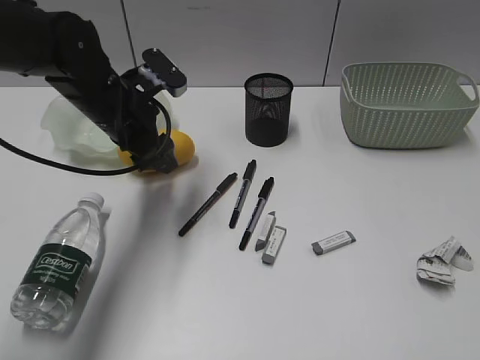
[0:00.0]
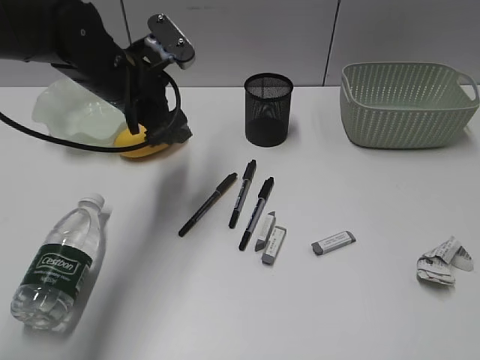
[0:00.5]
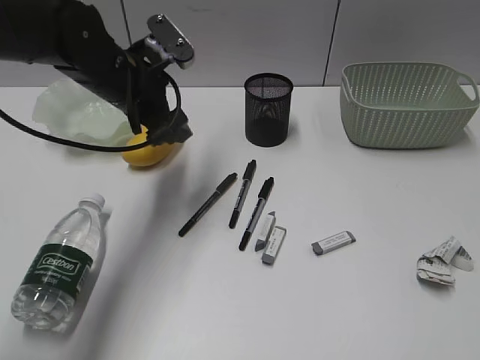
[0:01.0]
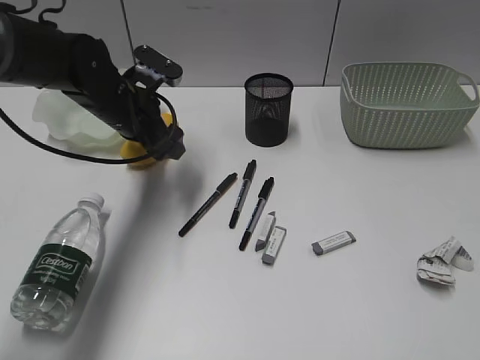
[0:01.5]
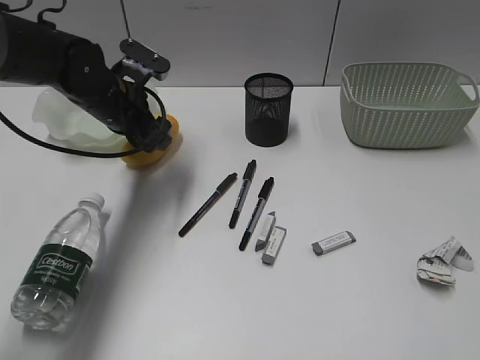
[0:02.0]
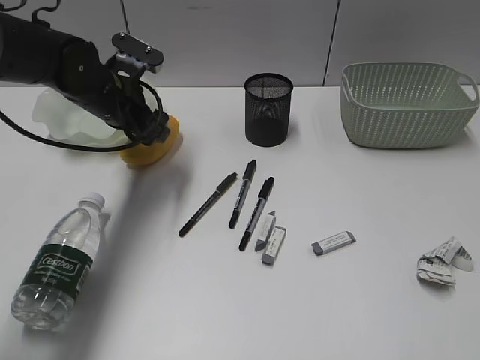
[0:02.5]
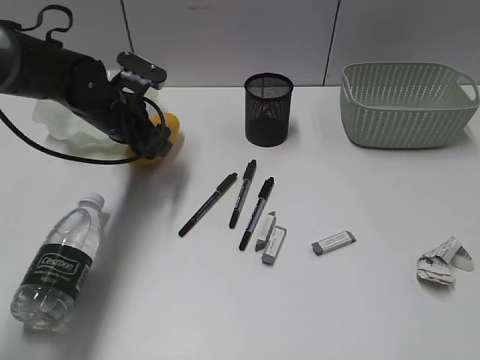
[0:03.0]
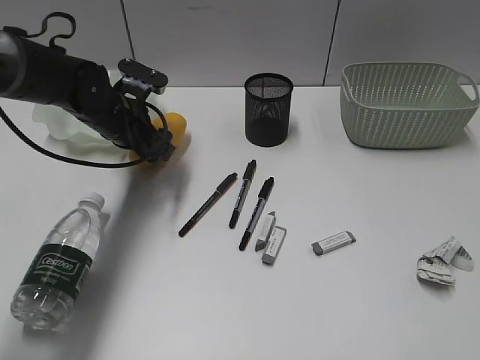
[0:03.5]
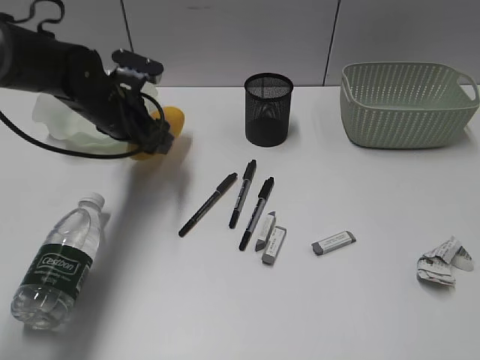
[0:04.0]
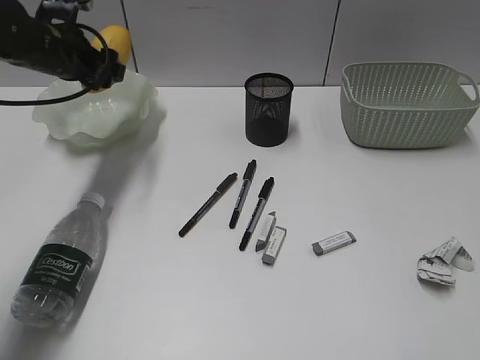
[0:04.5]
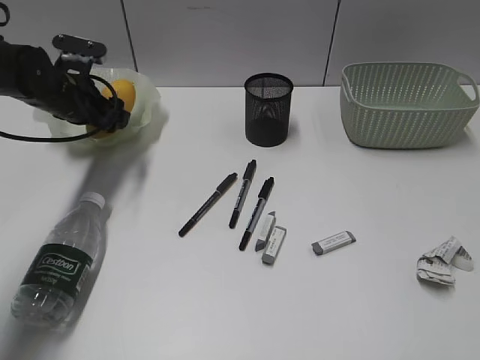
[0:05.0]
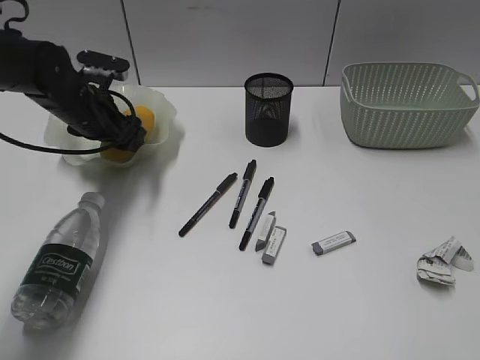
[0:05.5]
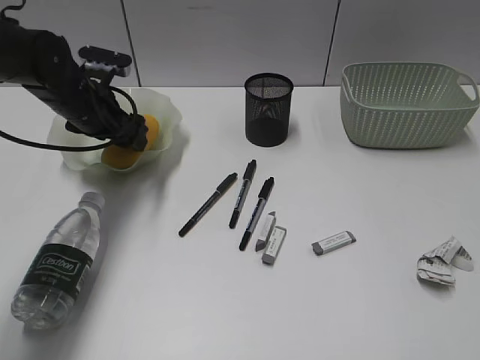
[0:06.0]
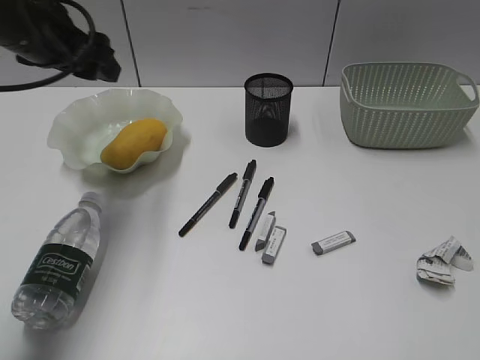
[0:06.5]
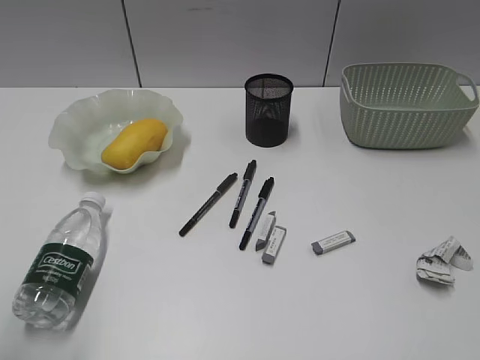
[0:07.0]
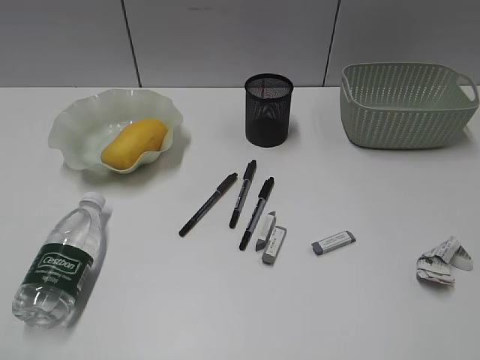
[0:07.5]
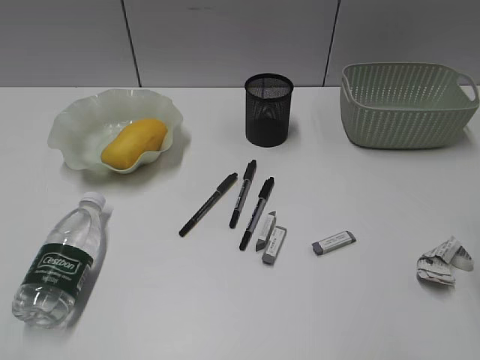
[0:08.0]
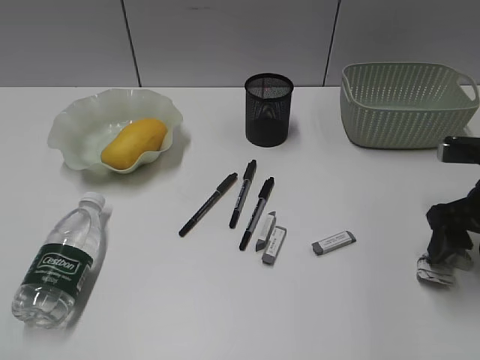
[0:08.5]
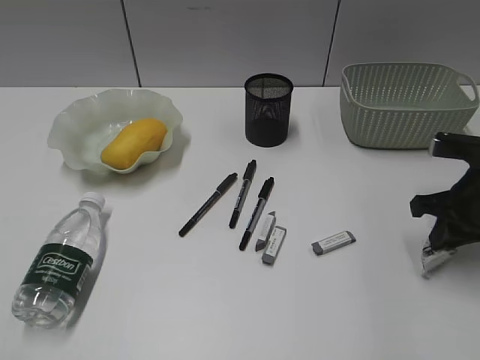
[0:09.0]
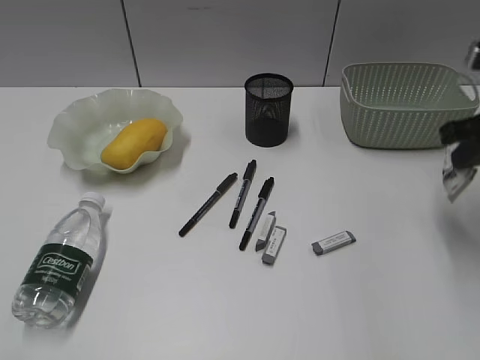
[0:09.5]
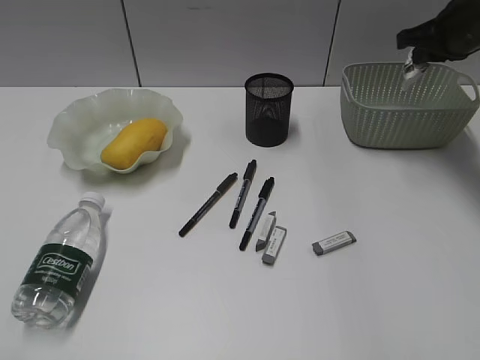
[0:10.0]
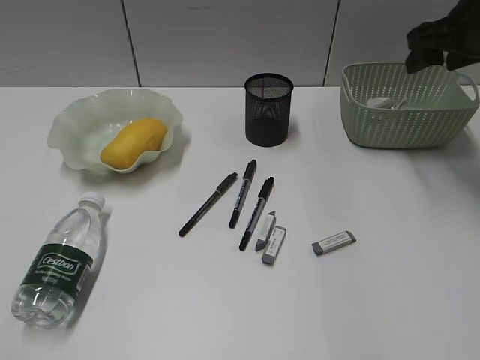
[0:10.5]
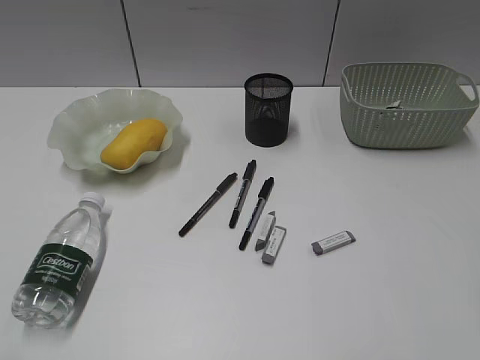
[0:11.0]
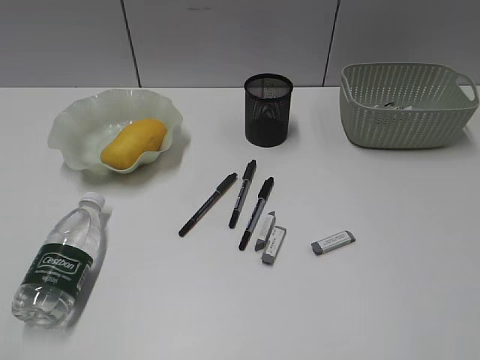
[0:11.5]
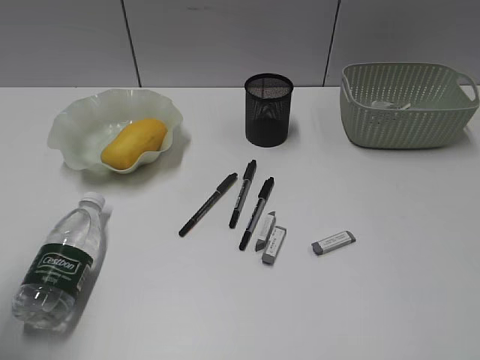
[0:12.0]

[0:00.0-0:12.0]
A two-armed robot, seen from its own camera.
Step, 0:00.0 to 0:03.5: Grasp the mango with left gripper.
Step, 0:04.0 to 0:06.5: Place the mango in the plate with left gripper.
Step, 0:07.0 to 0:09.0: Grasp the waste paper with right gripper.
Step, 0:09.5 to 0:10.5: Place the waste paper in the basket with right gripper.
0:00.0 to 0:02.0: There are only small adjustments of the grippers.
0:02.0 to 0:04.0: The grippers move only a little.
0:06.0 to 0:08.0: The left gripper heads backward, covering some 40 cm.
0:08.0 to 0:10.0: The right gripper shifts roughly 25 cm forward, and closes up.
0:10.0 to 0:12.0: The left gripper heads forward, covering about 15 cm, while the right gripper heads backward, covering approximately 40 cm, and opens its fingers.

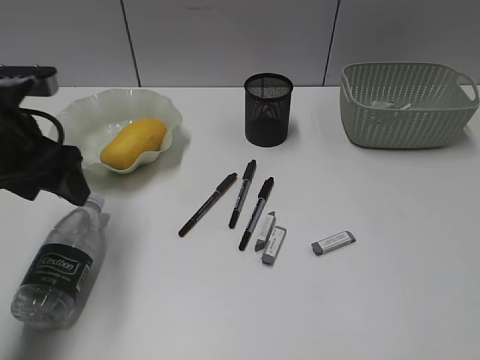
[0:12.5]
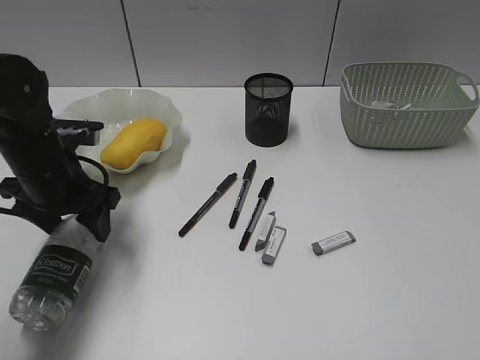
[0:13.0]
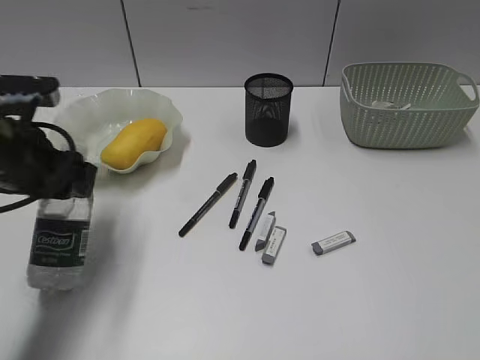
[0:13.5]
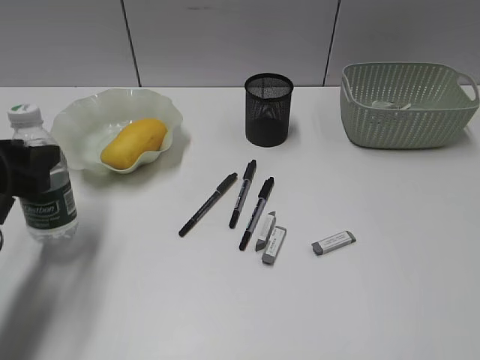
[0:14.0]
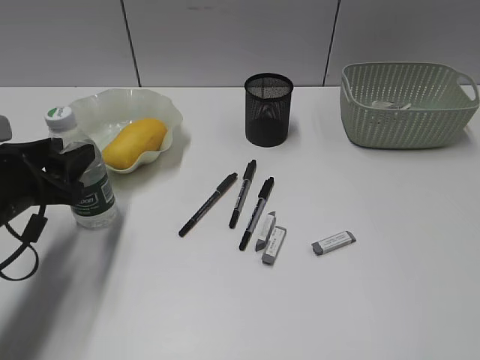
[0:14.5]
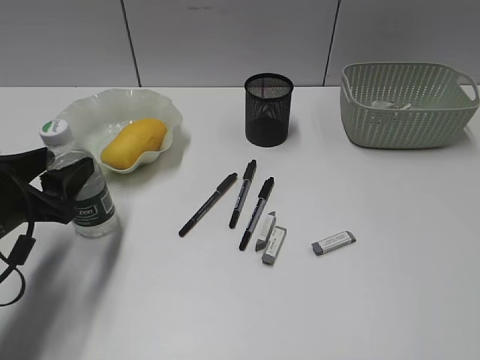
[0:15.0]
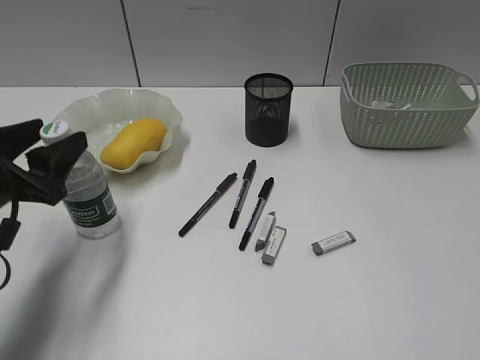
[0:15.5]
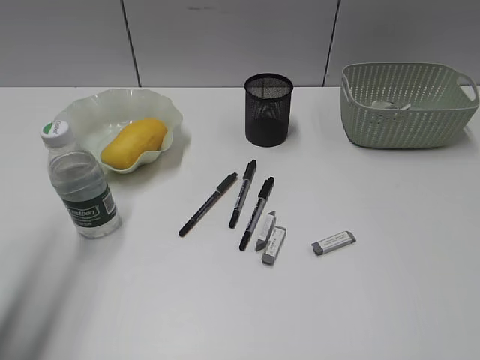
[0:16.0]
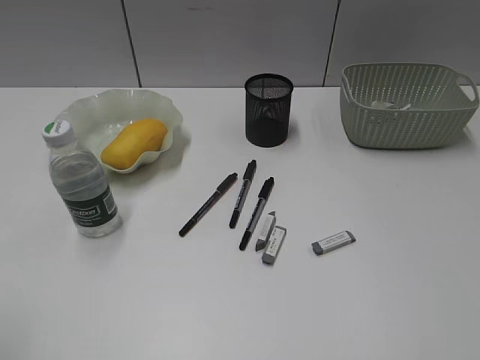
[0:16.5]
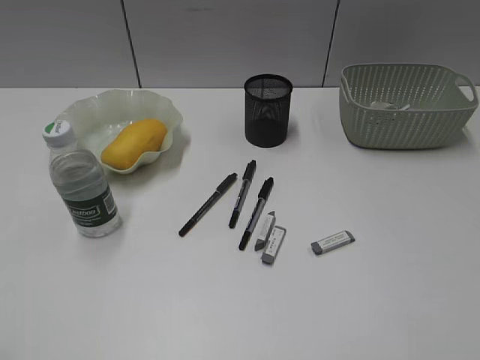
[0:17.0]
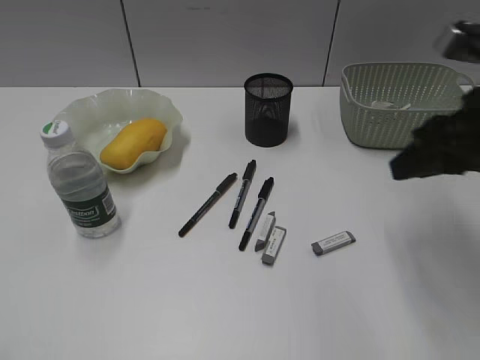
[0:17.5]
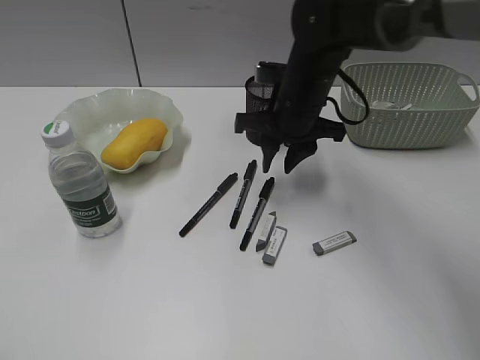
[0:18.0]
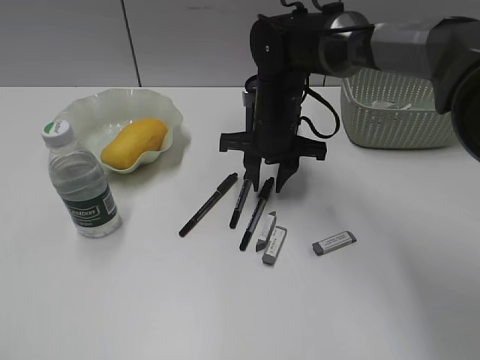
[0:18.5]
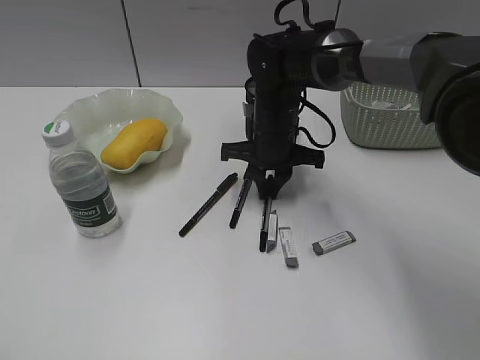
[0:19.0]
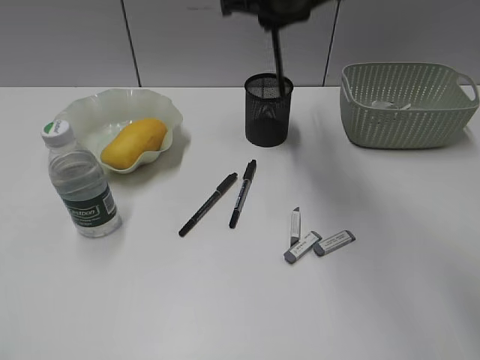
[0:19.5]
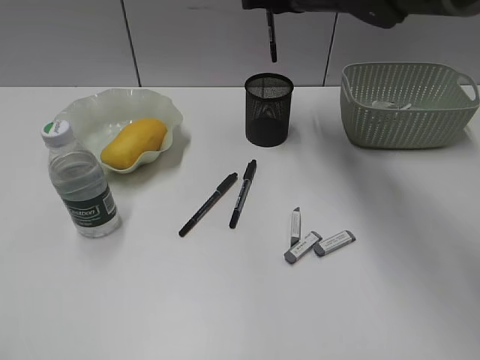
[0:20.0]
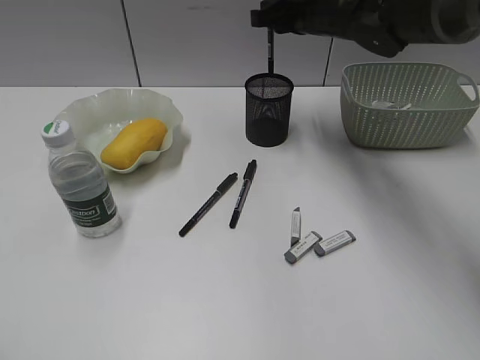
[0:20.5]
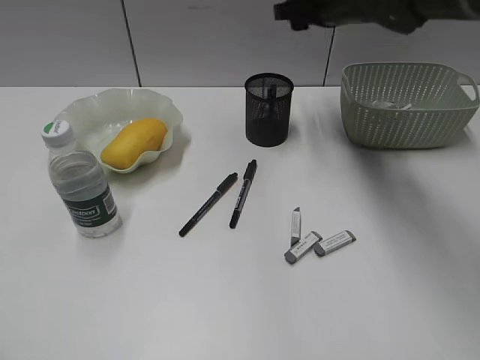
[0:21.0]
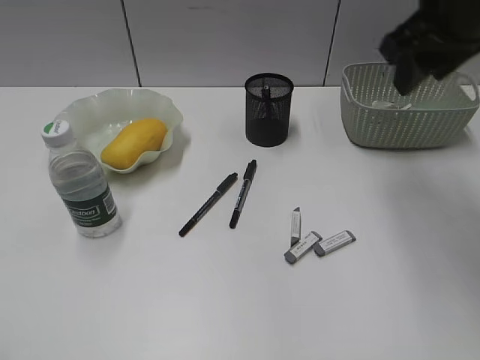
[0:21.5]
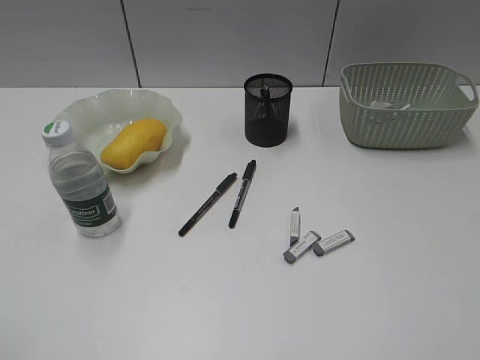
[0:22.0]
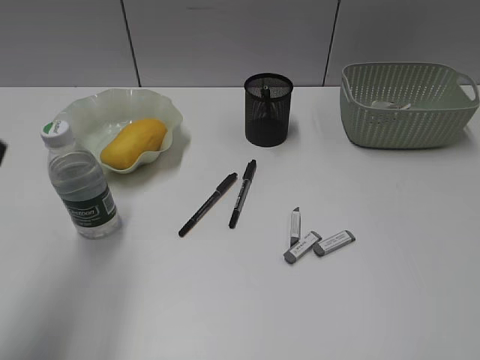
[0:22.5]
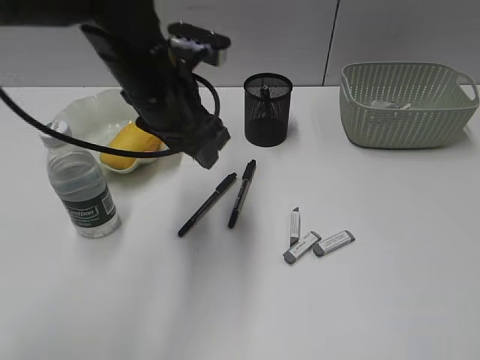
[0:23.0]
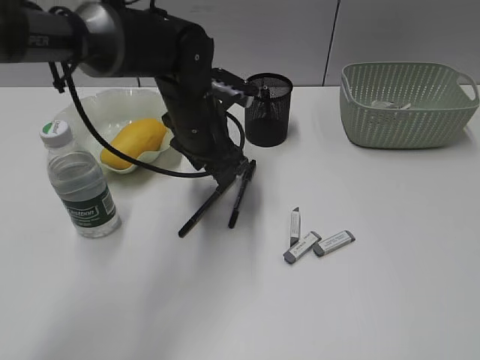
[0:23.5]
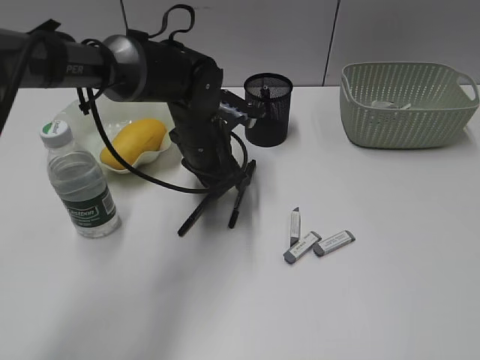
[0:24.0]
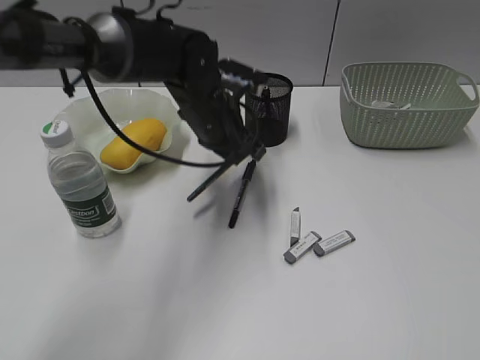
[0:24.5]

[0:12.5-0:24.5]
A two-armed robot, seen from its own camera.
Step, 0:13.5 to 0:15.5: Stand the bottle with left gripper.
Step, 0:16.0 to 0:19.0: Grasp the black pen with right gripper.
Step, 0:21.5 to 0:24.0: Grasp the black pen with left gripper.
0:12.5 to 0:14.5: The left gripper travels downward by roughly 10 cm, and closes its fingers.
0:14.5 to 0:16.5: The left gripper shifts approximately 25 cm backward and upward.
0:16.5 to 0:18.5: The left gripper is displaced backward by approximately 5 cm; the right gripper shifts some 50 cm forward and to the left.
0:18.5 to 0:20.5: The right gripper shifts about 15 cm upward, forward and to the right, and closes up.
0:20.5 to 0:22.5: The right gripper moves backward and to the right, roughly 50 cm, and opens, while the left gripper goes approximately 15 cm forward, and opens.
0:22.5 to 0:24.5: The left gripper travels forward, to the right and downward by about 35 cm, and closes up.

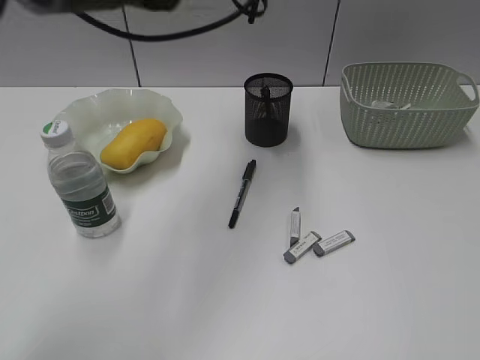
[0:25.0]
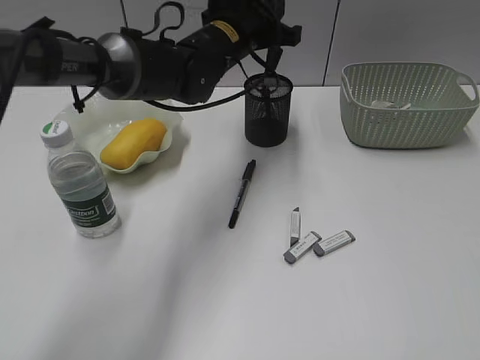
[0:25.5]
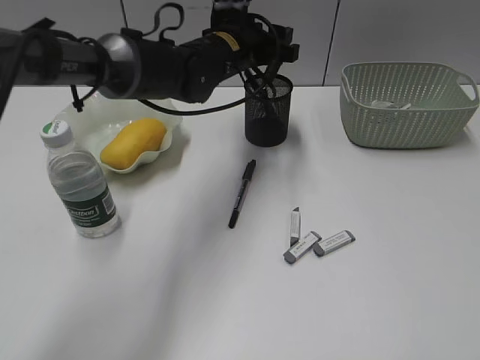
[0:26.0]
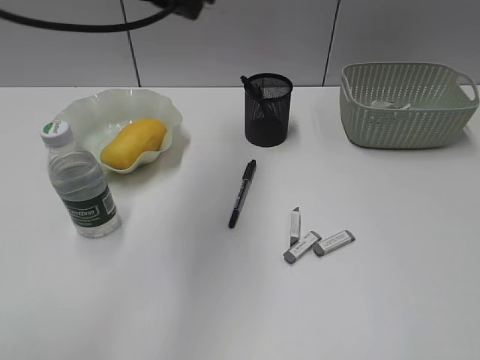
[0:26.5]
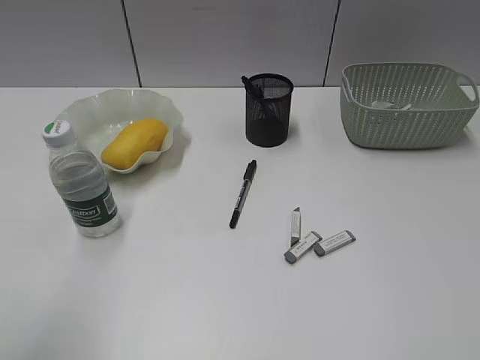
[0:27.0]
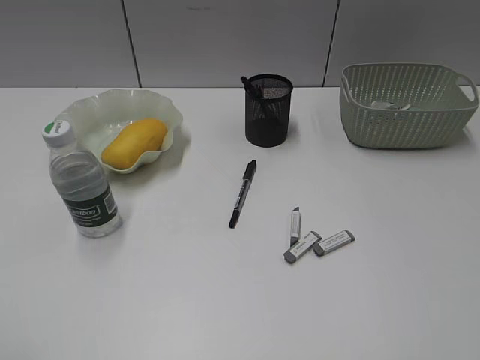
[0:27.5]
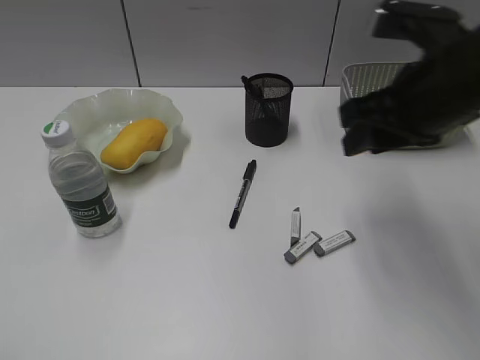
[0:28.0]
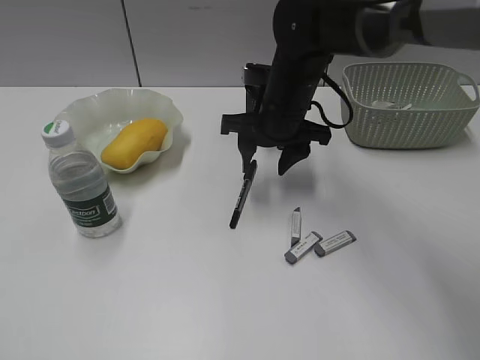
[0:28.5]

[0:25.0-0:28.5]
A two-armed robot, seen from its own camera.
Step, 0:25.0 to 0:26.0: Place the black pen in pen holder with left gripper.
0:25.0 to 0:27.0: The left gripper shifts roughly 40 cm backward and to the left, and opens, then closes again.
0:27.0 to 0:28.5: The left gripper is displaced backward and to the left by roughly 10 cm; the right gripper moves forward and to the left, approximately 50 cm, and opens.
